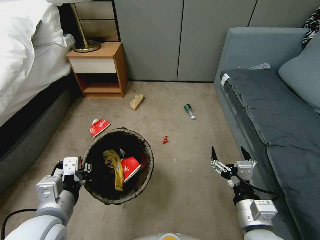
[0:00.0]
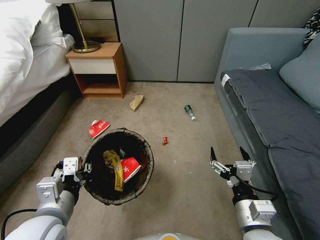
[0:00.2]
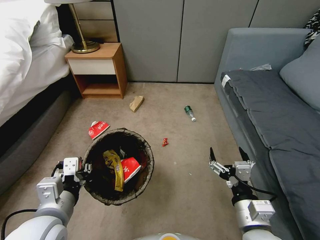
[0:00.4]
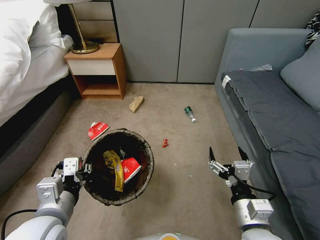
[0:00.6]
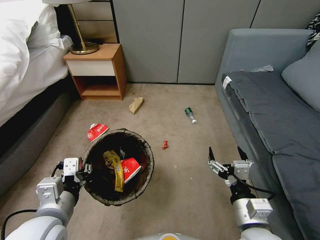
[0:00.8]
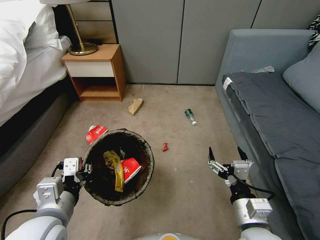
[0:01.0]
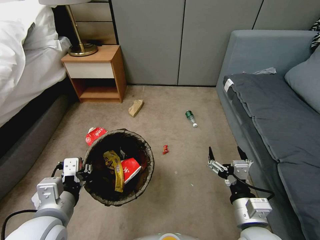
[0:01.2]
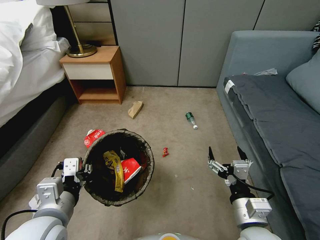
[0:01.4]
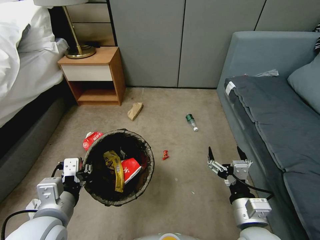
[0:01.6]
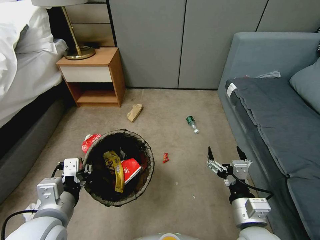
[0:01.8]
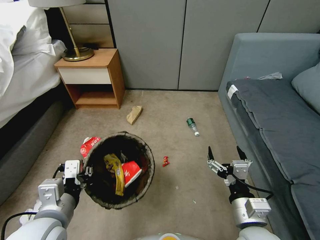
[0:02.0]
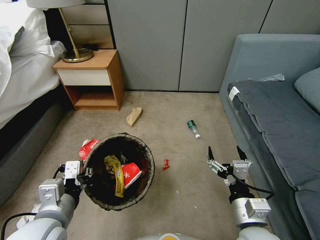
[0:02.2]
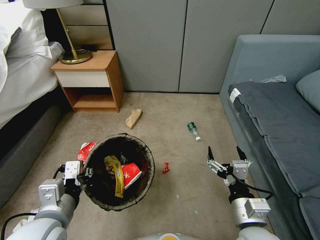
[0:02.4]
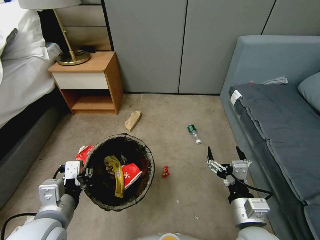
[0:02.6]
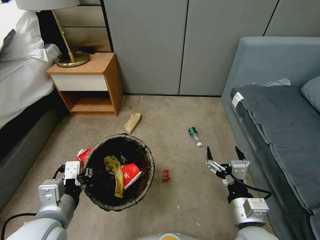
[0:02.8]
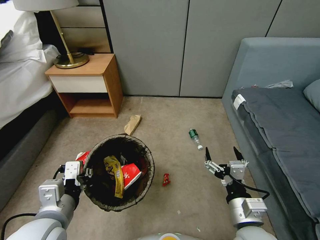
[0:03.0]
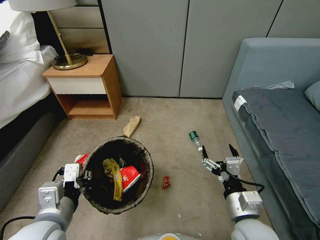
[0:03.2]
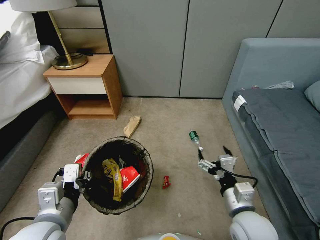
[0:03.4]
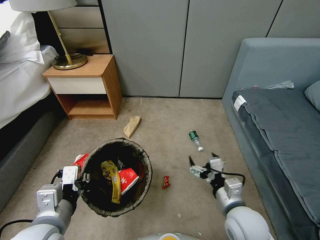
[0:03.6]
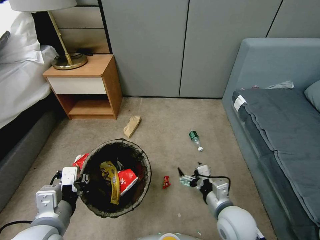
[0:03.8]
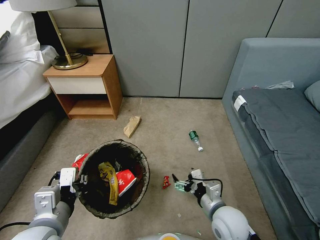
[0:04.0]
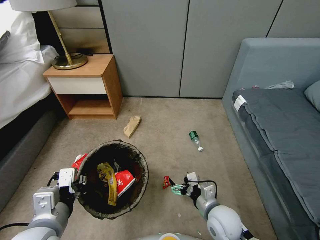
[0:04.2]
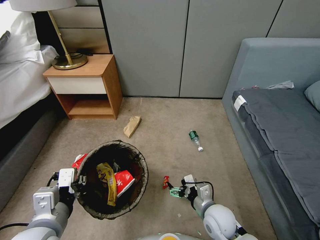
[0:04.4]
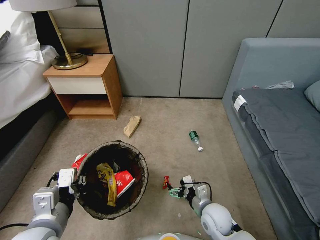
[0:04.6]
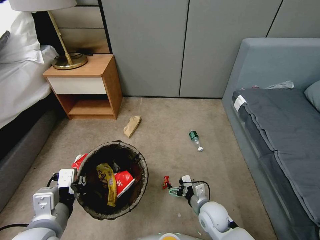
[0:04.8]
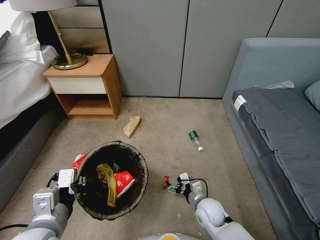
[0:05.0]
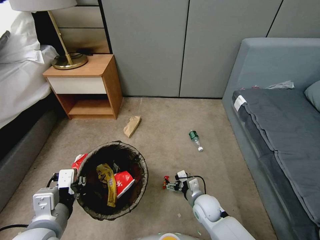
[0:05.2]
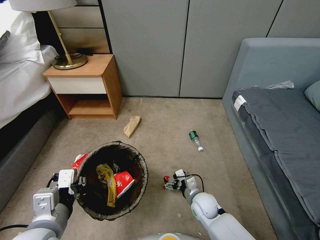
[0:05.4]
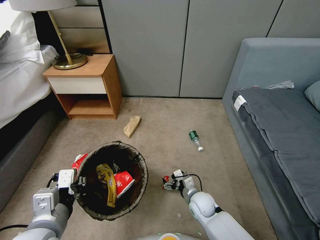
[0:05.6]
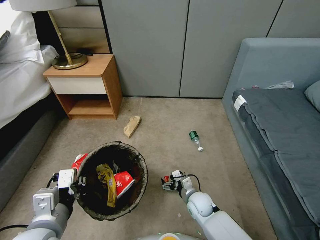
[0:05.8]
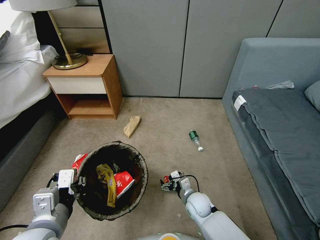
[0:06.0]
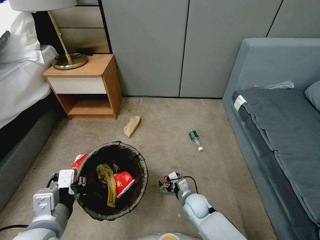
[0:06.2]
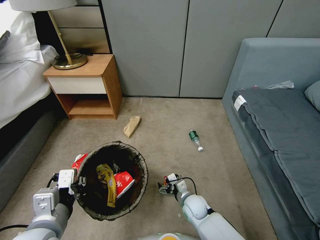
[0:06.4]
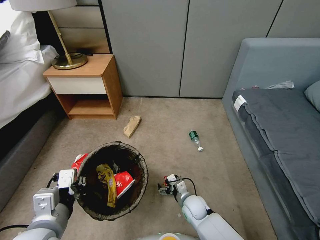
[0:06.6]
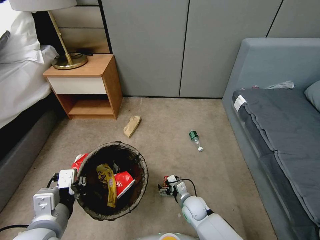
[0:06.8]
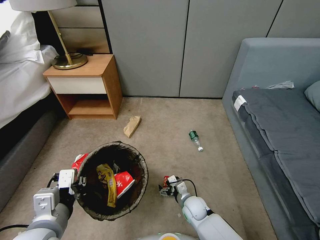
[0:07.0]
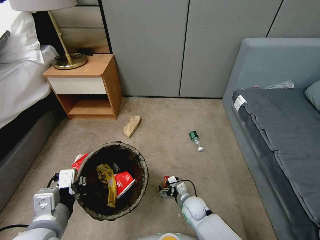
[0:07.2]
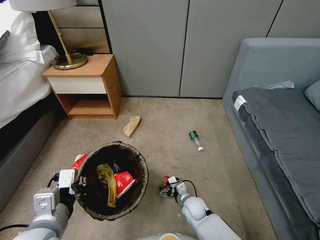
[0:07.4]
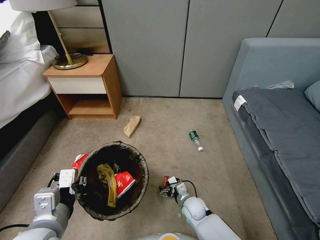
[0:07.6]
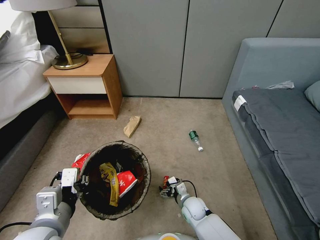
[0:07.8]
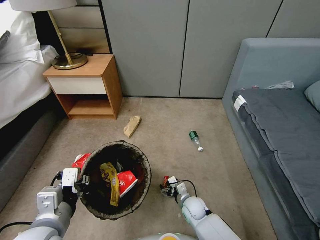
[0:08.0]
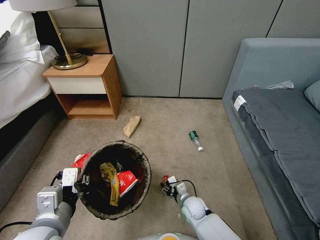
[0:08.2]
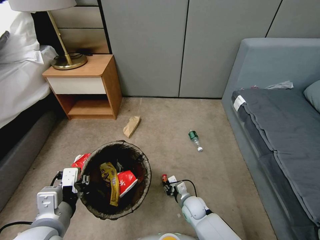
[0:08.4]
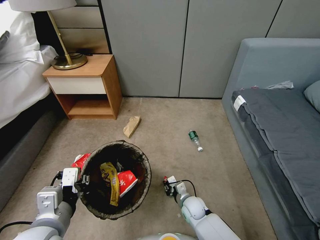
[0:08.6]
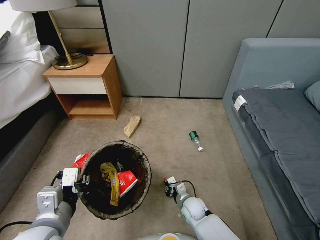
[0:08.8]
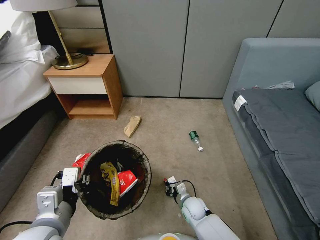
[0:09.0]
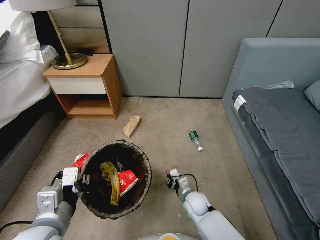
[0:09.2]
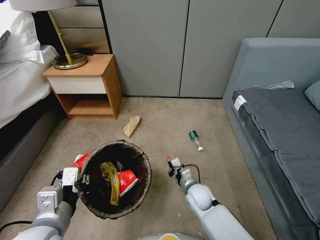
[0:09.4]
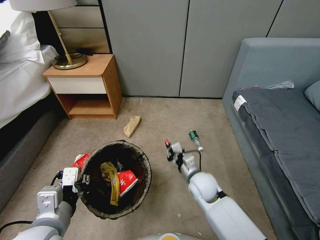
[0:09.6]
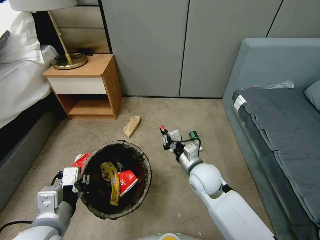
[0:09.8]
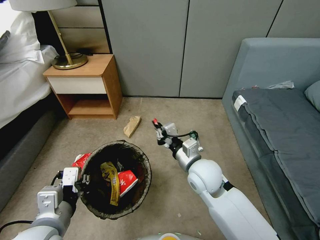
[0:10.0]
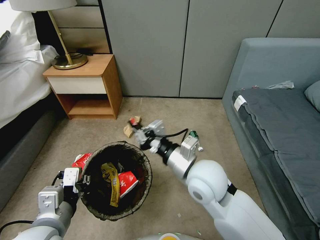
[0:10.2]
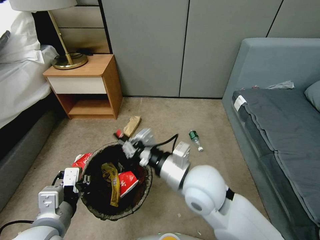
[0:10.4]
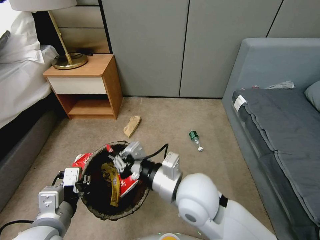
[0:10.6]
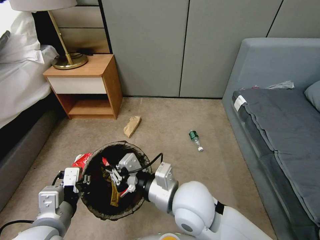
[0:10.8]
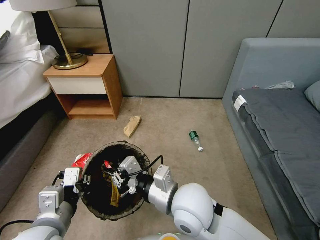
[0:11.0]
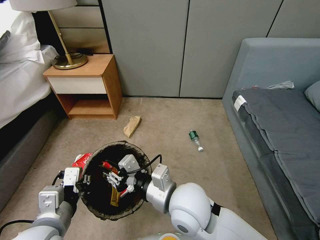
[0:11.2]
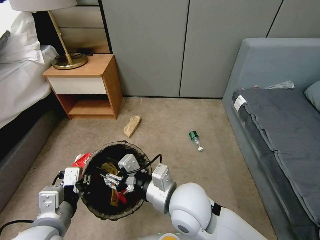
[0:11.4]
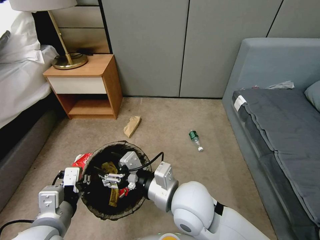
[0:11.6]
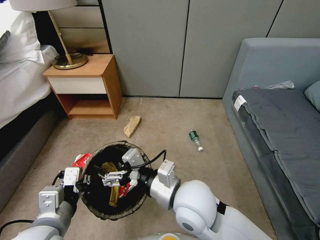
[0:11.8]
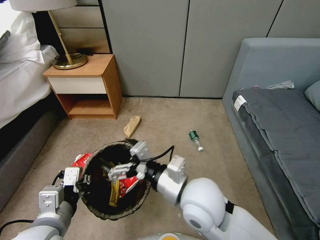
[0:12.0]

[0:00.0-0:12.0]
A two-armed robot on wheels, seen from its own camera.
Task of the whole recording: Pick up the trash bin, then pick up the garbage from the floor and place it into the trash bin.
0:03.0 to 0:04.4: The right gripper is displaced downward and forward by roughly 15 cm.
0:04.4 to 0:06.0: The right gripper travels downward and forward by approximately 10 cm.
0:06.0 to 0:07.6: The grippers move only a little.
0:07.6 to 0:09.0: The right gripper closes.
0:09.0 to 0:10.4: The right gripper heads upward, covering approximately 35 cm.
0:10.4 to 0:12.0: The right gripper opens.

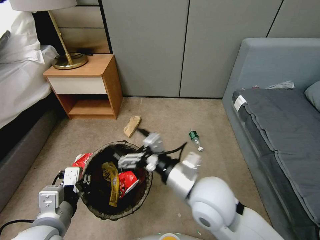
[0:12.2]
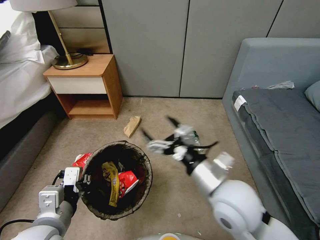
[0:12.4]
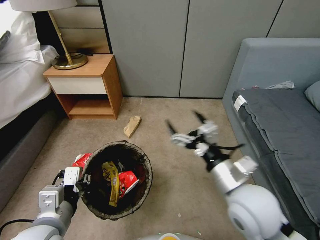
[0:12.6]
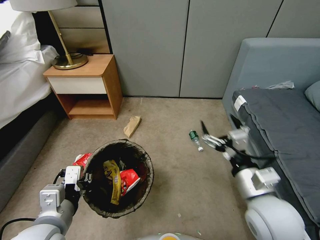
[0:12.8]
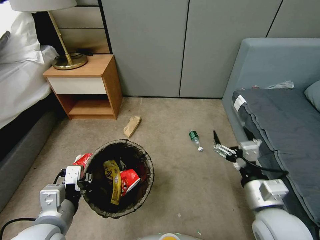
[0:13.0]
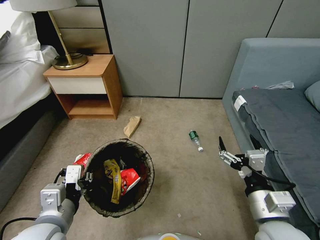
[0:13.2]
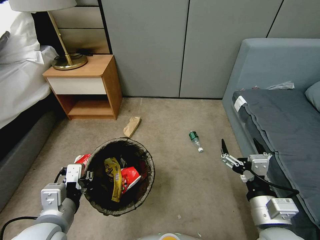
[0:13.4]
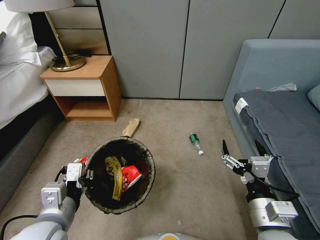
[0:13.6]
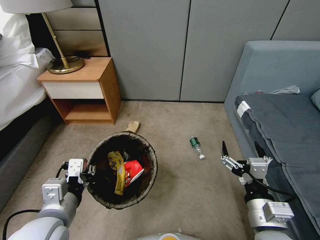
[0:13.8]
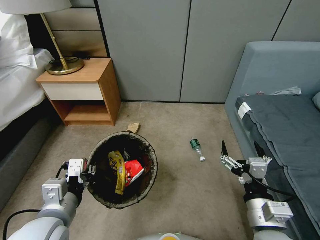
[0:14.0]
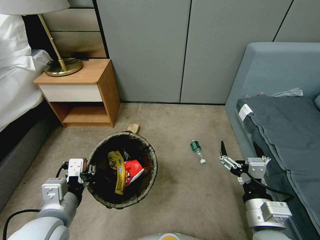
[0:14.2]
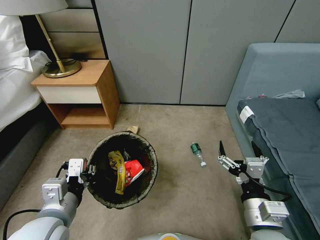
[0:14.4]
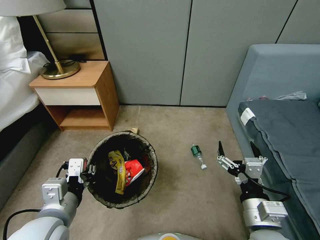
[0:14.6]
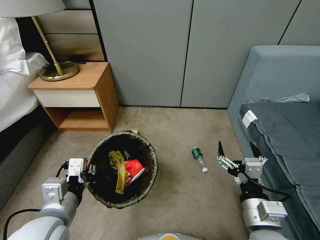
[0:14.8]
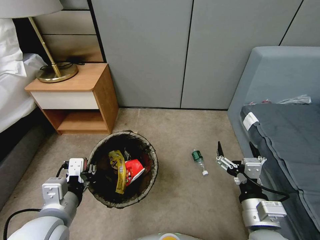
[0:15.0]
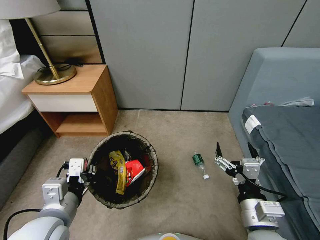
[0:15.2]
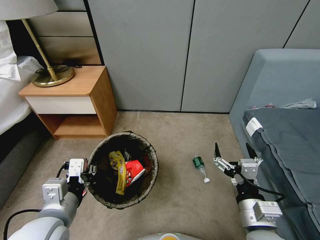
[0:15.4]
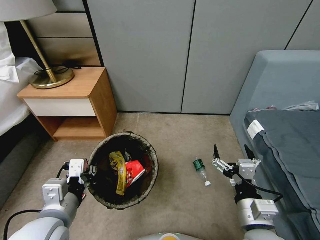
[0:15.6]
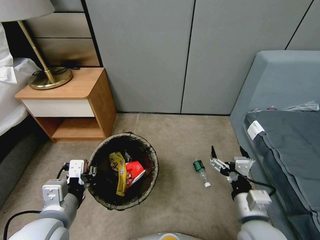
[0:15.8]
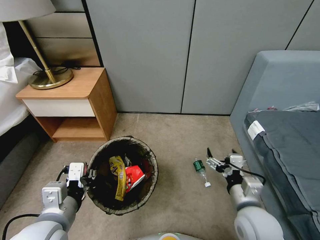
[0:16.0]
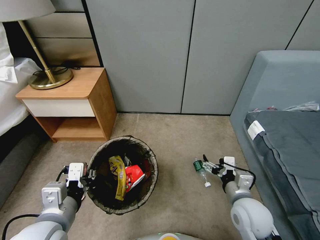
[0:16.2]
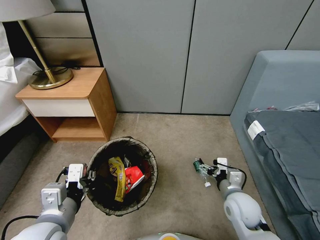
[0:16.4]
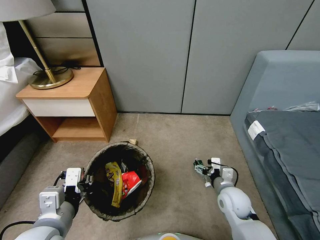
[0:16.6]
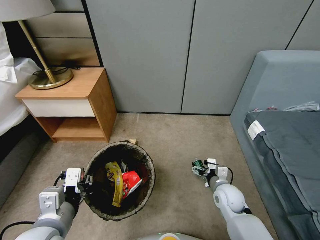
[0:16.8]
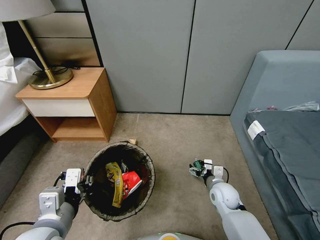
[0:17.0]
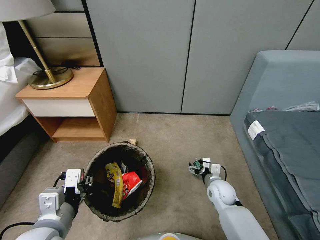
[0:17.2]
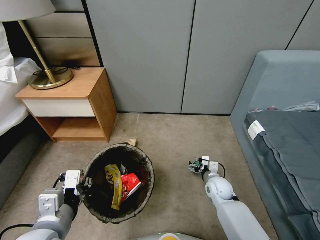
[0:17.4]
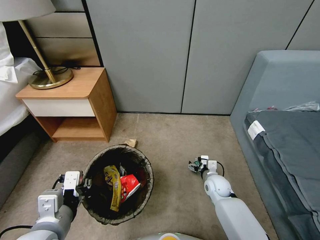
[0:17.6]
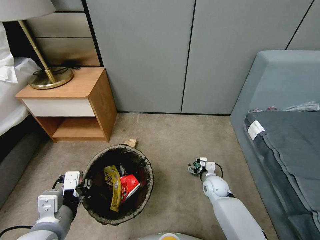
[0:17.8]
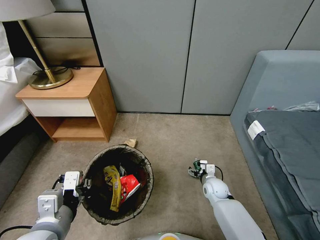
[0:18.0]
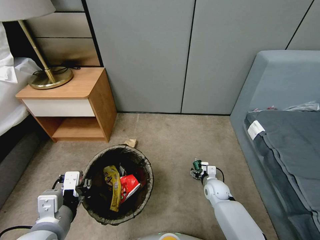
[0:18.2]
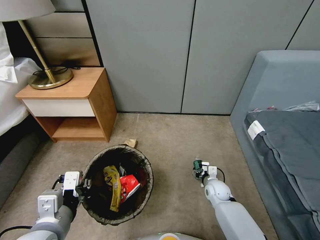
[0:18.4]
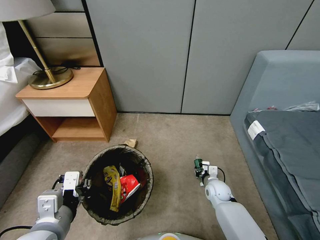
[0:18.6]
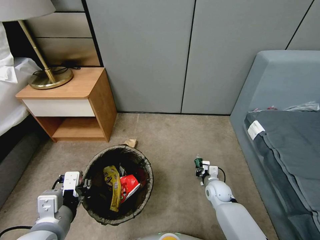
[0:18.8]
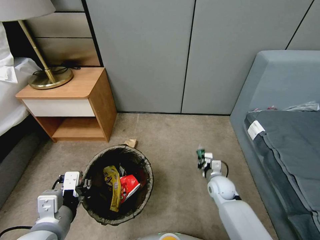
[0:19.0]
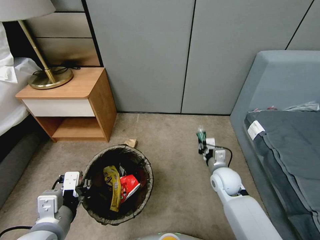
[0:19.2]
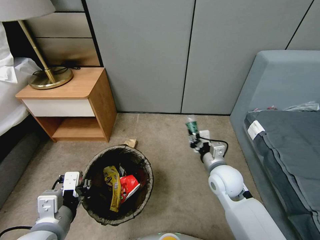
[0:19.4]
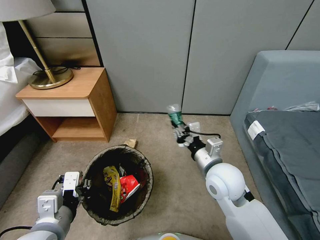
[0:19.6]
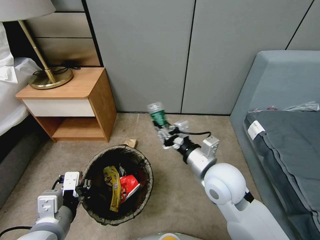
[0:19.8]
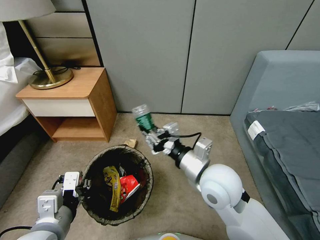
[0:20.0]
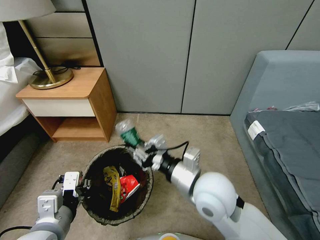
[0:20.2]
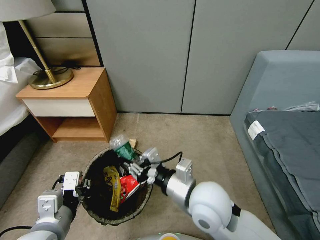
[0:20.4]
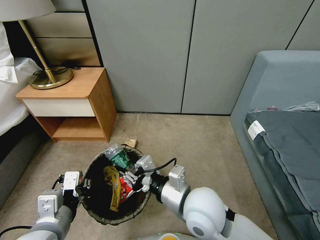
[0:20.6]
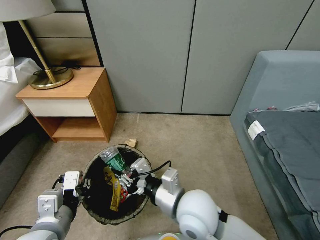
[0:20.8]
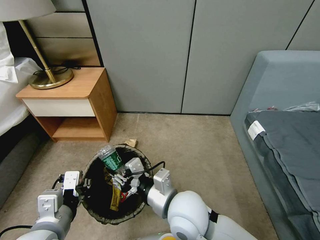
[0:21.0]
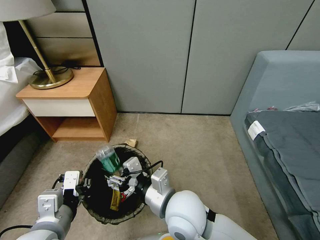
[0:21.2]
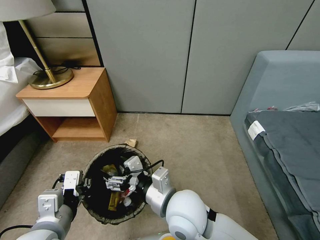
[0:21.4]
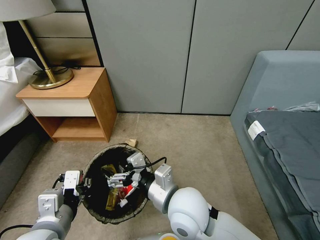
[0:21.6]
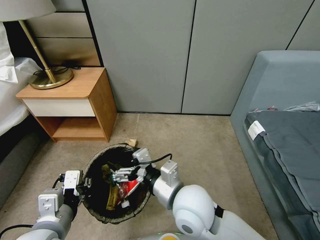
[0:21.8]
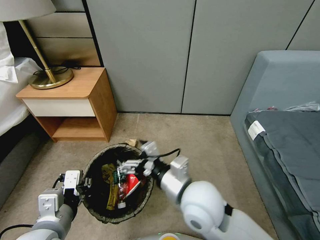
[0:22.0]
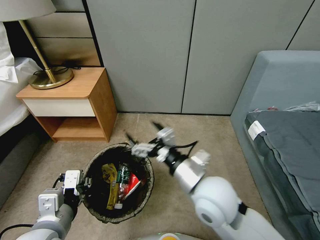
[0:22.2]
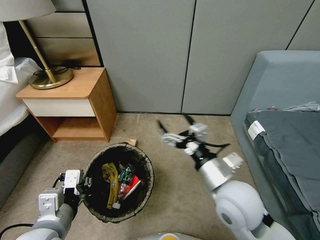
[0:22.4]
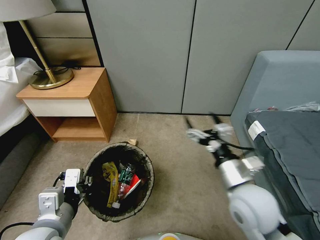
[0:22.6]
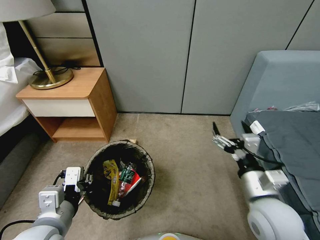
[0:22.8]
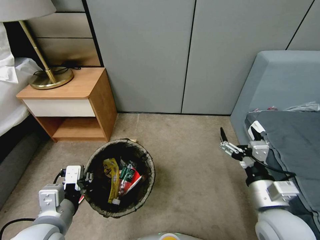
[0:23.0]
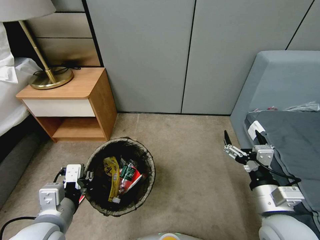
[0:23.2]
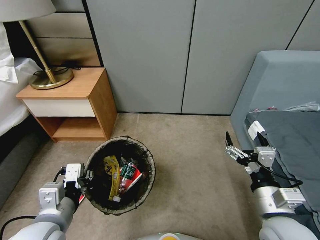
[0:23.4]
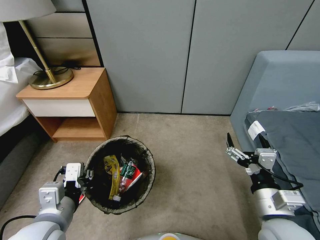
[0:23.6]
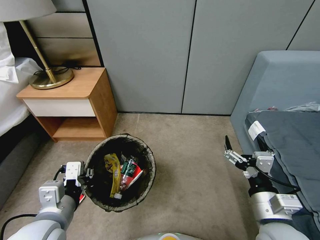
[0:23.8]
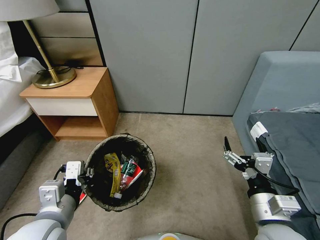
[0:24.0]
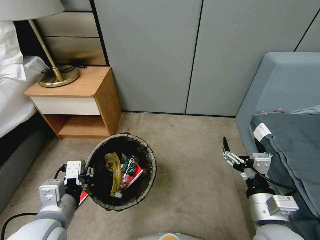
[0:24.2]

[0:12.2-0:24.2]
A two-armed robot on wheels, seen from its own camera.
Task of the whole recording: Pick up the trash bin, then pick up the garbage from the floor and place it into the trash bin.
0:12.2 to 0:13.8: The right gripper heads to the right, backward and downward, covering approximately 20 cm.
0:15.2 to 0:16.6: The right gripper shifts some 20 cm forward and downward.
0:16.6 to 0:18.2: The right gripper moves downward and forward, about 15 cm.
0:18.2 to 0:19.8: The right gripper heads upward, covering some 30 cm, and closes up.
0:19.8 to 0:21.2: The right gripper travels to the left and backward by some 10 cm, and opens.
0:21.2 to 0:22.6: The right gripper goes roughly 15 cm to the right, and opens up.
0:22.6 to 0:24.2: The right gripper shifts about 5 cm backward.
